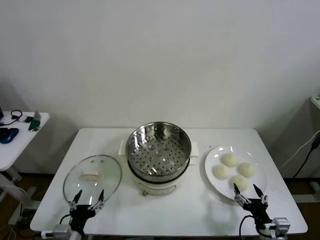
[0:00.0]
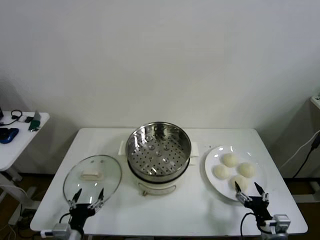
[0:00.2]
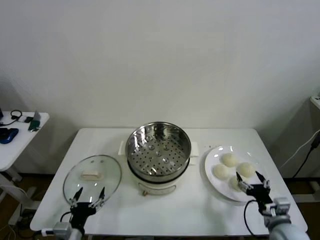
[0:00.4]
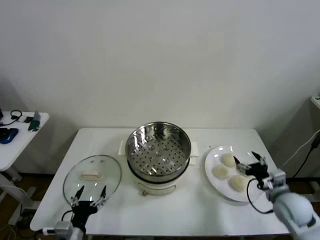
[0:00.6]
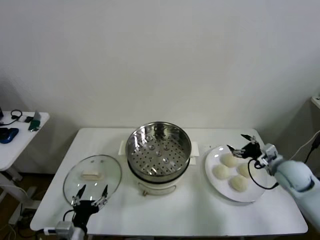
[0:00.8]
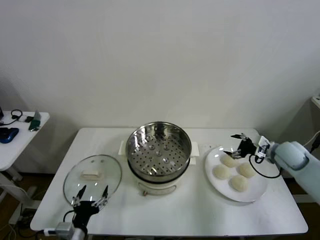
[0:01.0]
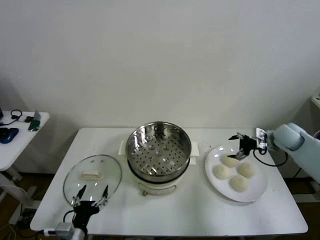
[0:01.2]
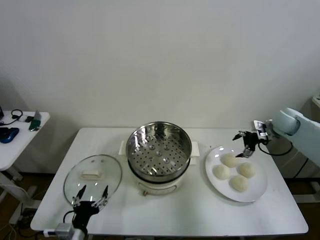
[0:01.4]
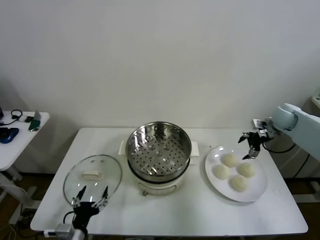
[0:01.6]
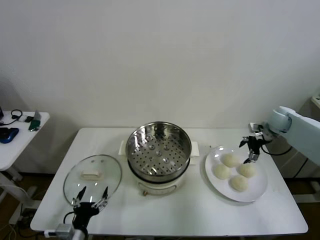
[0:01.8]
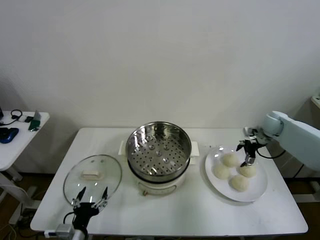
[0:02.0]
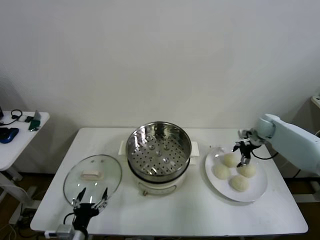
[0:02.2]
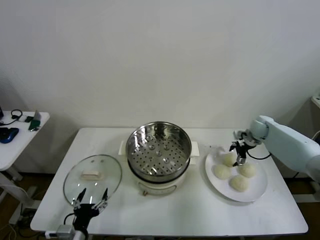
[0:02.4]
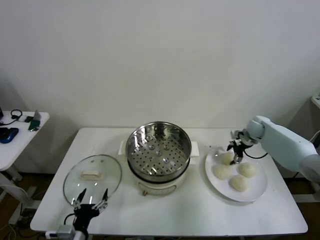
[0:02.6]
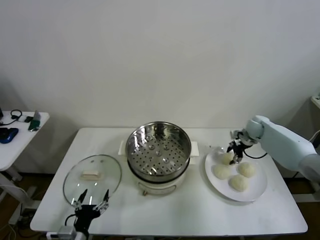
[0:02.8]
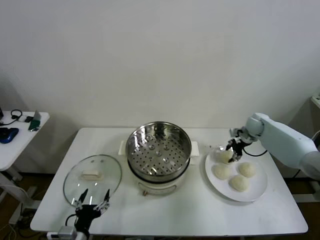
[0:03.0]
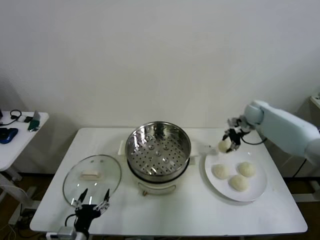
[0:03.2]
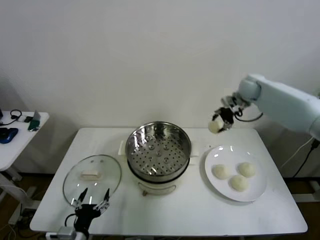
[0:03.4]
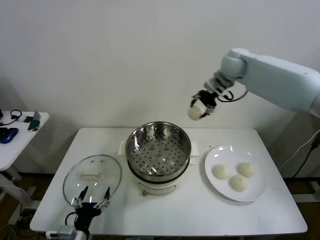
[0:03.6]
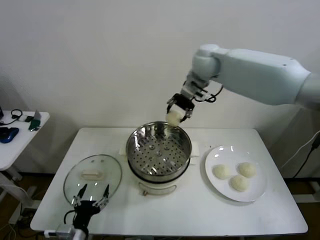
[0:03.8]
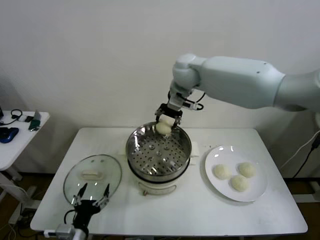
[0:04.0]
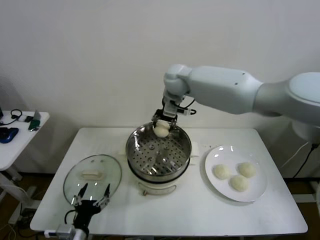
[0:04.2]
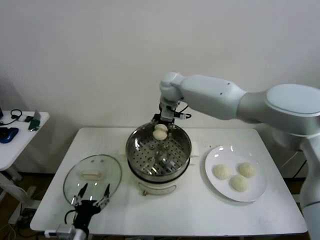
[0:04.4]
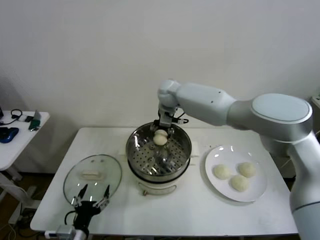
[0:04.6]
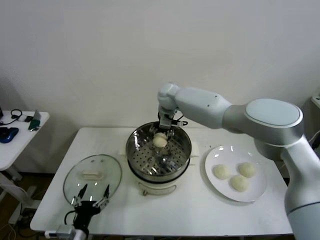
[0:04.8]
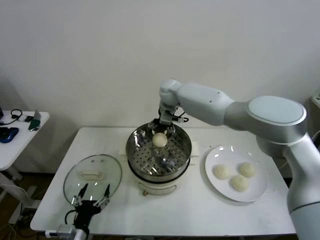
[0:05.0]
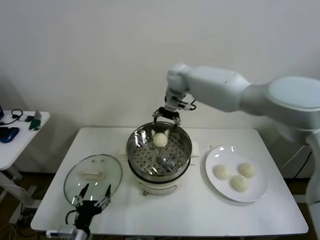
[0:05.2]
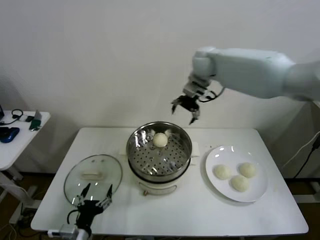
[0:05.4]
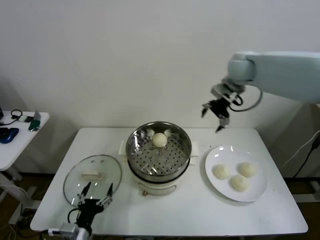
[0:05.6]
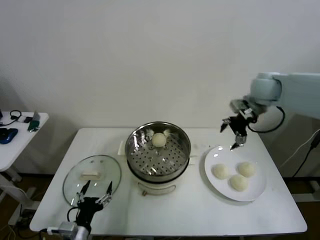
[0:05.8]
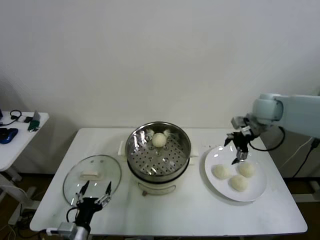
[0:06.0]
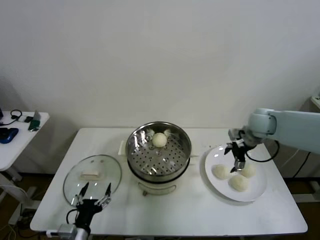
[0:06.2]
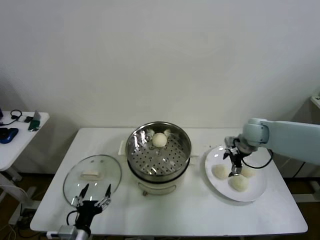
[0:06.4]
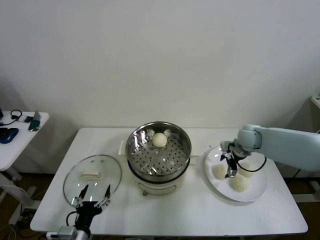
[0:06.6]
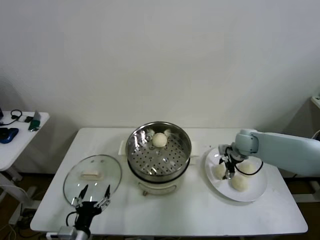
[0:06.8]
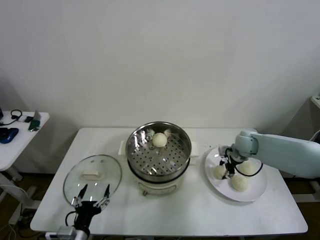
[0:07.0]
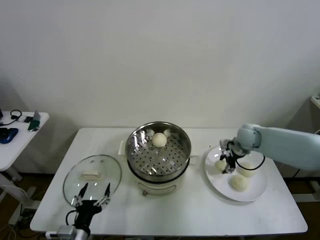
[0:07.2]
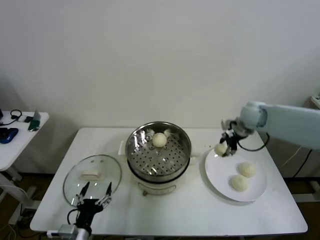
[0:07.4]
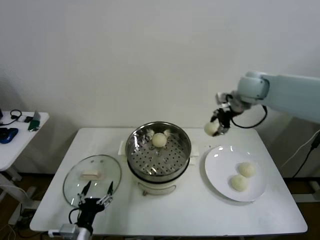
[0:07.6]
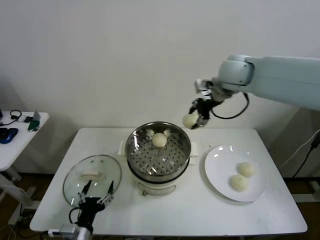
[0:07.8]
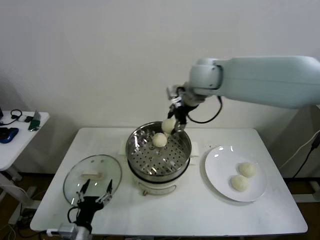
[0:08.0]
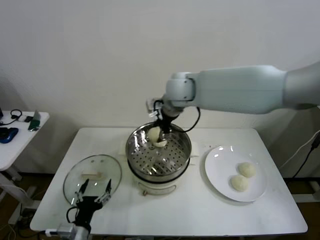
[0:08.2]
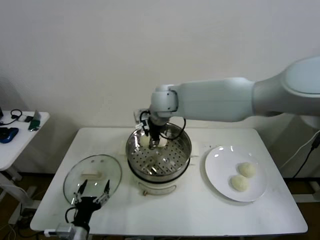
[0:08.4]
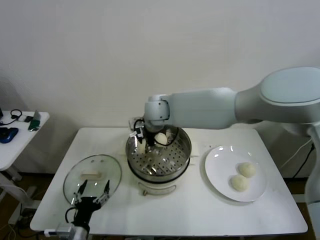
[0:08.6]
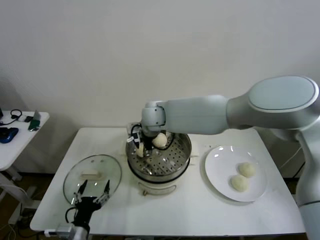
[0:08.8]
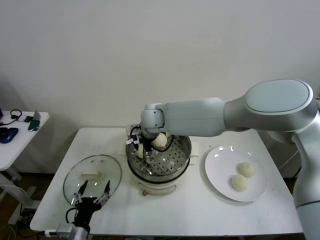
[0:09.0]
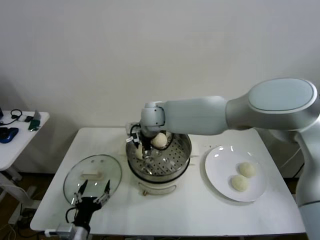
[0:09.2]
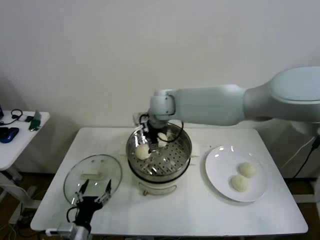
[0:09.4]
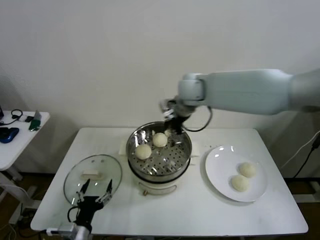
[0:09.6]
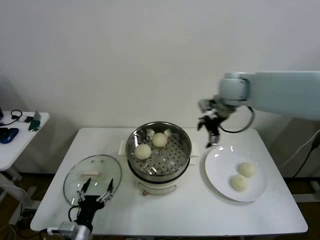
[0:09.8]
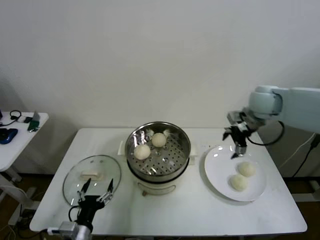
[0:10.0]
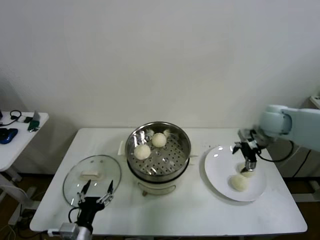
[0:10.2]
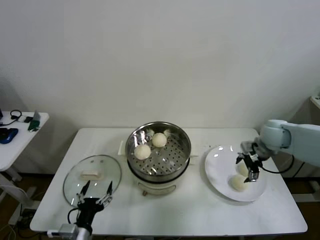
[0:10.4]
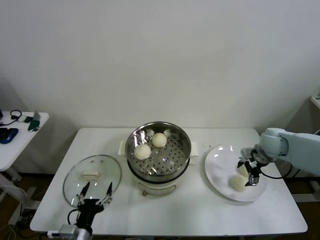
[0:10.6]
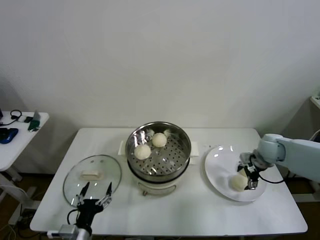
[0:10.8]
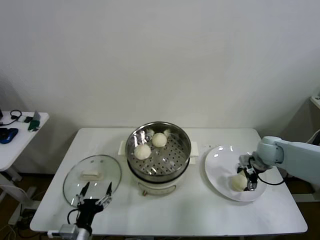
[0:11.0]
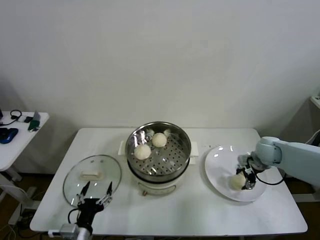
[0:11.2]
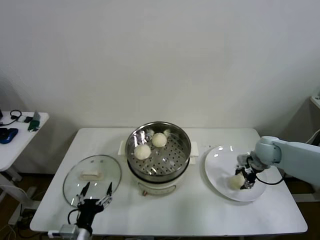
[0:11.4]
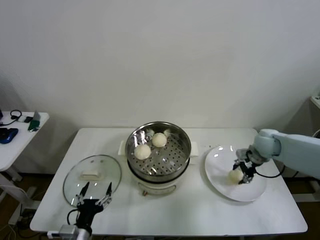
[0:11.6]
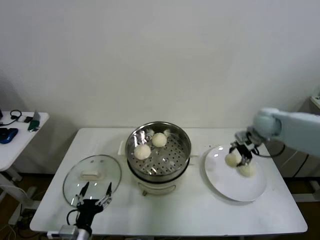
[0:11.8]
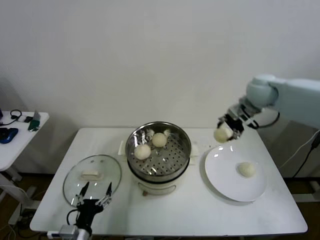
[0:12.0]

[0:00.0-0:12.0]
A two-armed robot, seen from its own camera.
Step, 0:00.0 to 0:02.8: Grasp the baozi in the plate with right gripper.
Step, 0:03.0 to 0:04.8: Place the baozi on the steamer with right gripper.
Step, 0:05.0 to 0:07.0: Grasp the baozi in the plate with right gripper.
Step, 0:07.2 to 0:09.0: Place the baozi on the steamer with right gripper.
Step, 0:09.2 to 0:11.2: Grasp the baozi in the plate with right gripper.
0:01.6 to 0:03.0: The right gripper moves to the left and forward, roughly 10 cm, and closes its fingers.
0:03.0 to 0:04.4: The right gripper goes some 35 cm to the left.
0:04.4 to 0:06.0: The right gripper travels to the right by about 30 cm, and opens up.
0:06.0 to 0:07.6: The right gripper moves upward and to the left, approximately 15 cm, and closes up.
0:07.6 to 0:09.0: The right gripper heads to the left and downward, covering roughly 30 cm, and opens its fingers.
0:09.0 to 0:10.4: The right gripper travels to the right by approximately 40 cm, and opens.
0:10.4 to 0:12.0: The right gripper heads upward and to the left, covering roughly 20 cm, and closes up.

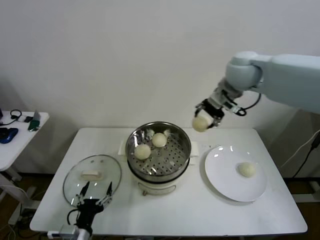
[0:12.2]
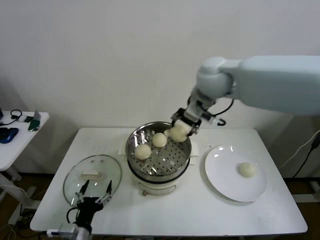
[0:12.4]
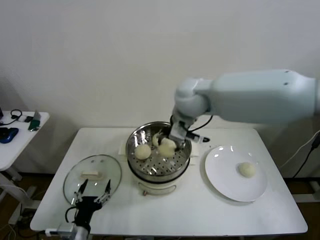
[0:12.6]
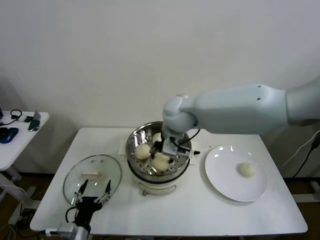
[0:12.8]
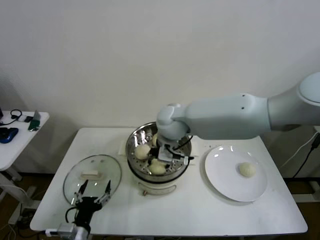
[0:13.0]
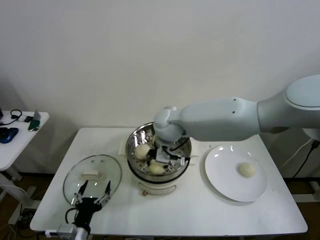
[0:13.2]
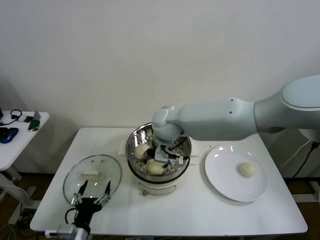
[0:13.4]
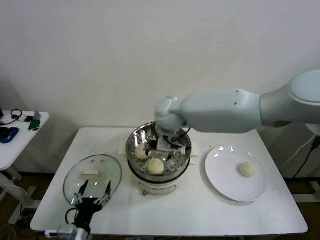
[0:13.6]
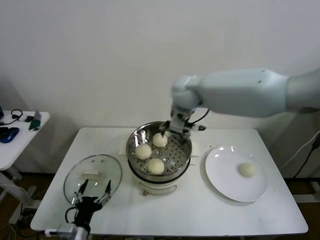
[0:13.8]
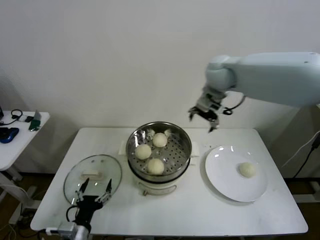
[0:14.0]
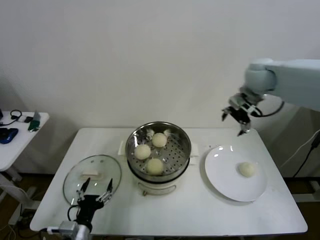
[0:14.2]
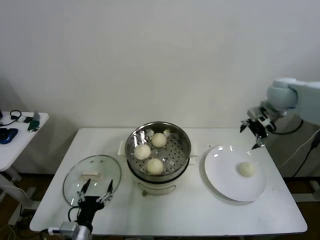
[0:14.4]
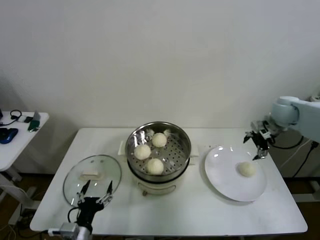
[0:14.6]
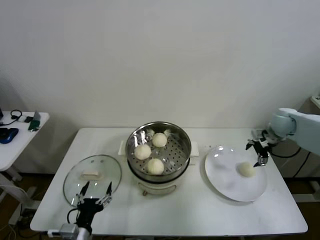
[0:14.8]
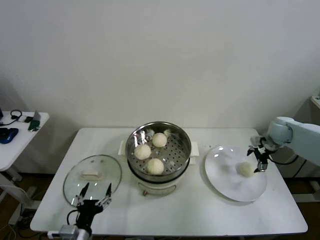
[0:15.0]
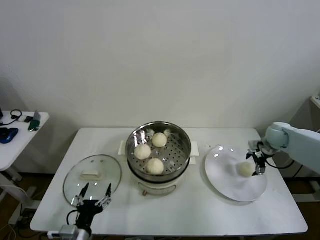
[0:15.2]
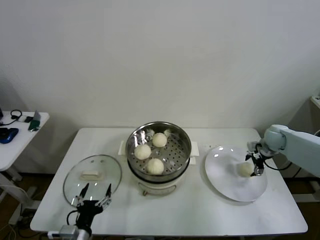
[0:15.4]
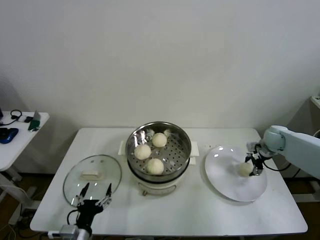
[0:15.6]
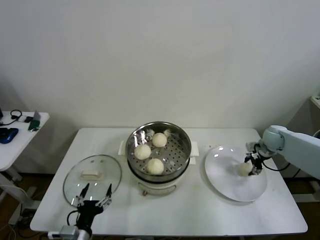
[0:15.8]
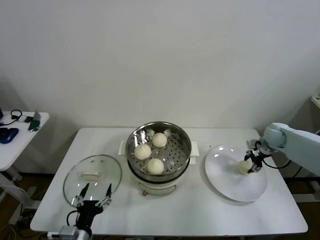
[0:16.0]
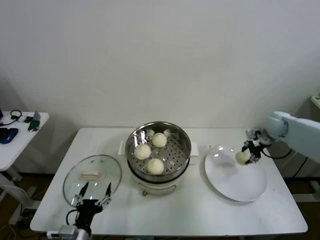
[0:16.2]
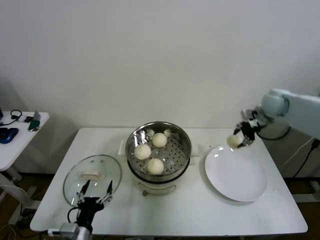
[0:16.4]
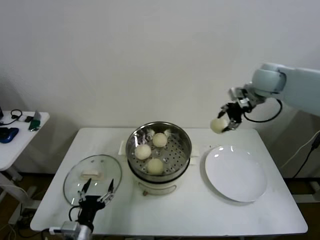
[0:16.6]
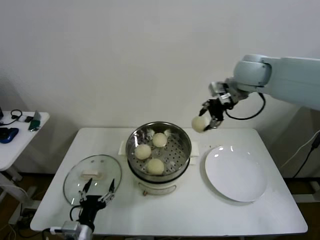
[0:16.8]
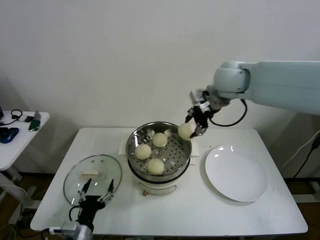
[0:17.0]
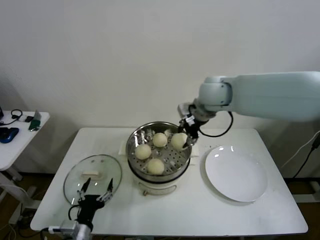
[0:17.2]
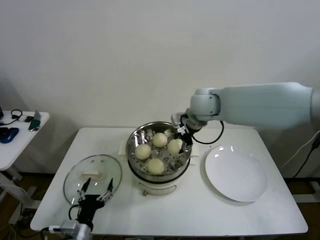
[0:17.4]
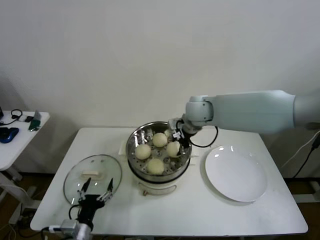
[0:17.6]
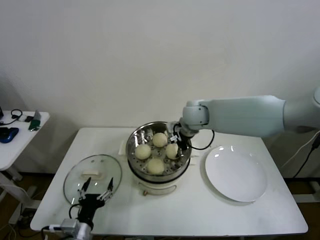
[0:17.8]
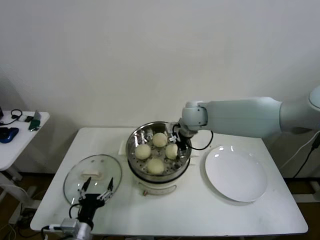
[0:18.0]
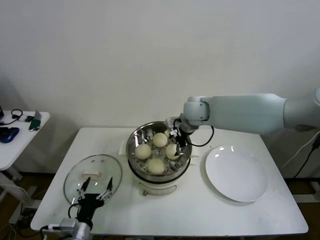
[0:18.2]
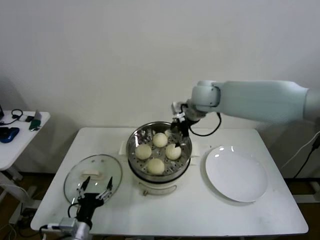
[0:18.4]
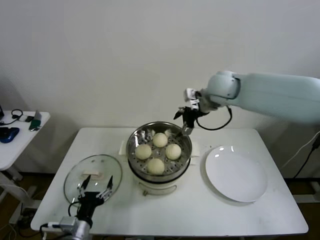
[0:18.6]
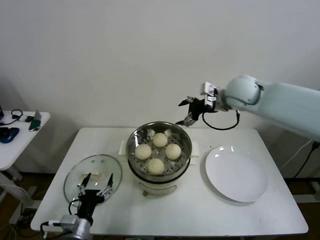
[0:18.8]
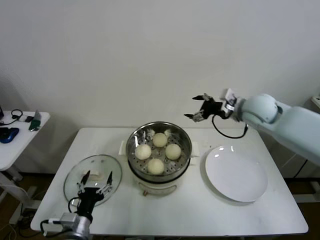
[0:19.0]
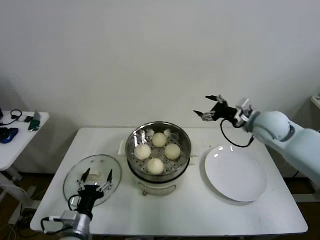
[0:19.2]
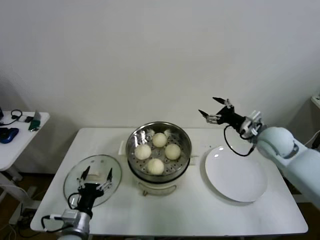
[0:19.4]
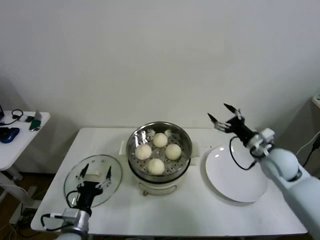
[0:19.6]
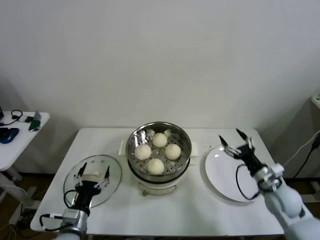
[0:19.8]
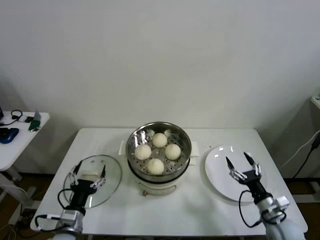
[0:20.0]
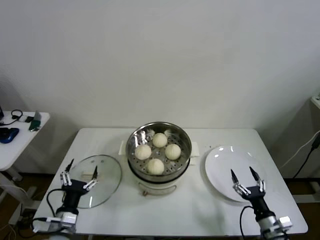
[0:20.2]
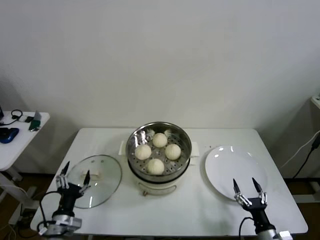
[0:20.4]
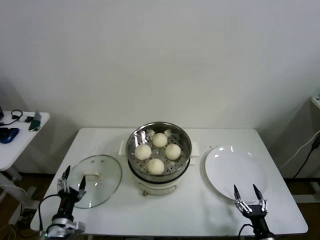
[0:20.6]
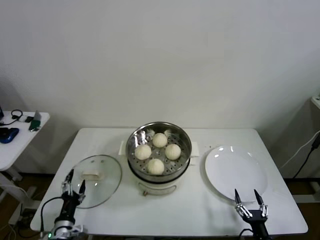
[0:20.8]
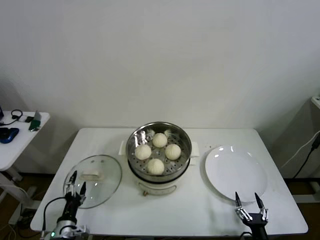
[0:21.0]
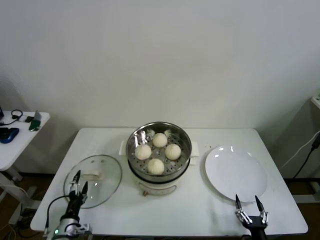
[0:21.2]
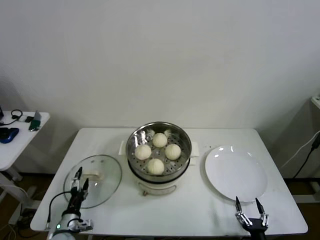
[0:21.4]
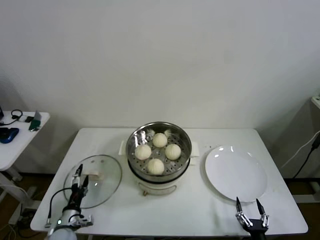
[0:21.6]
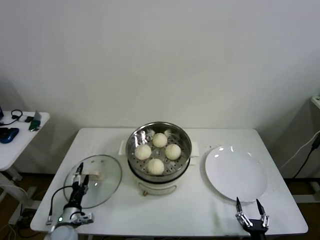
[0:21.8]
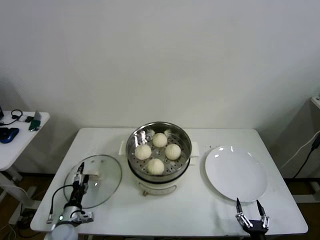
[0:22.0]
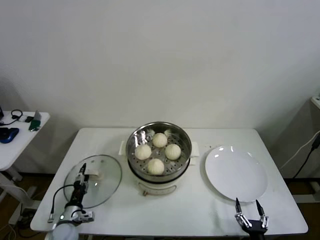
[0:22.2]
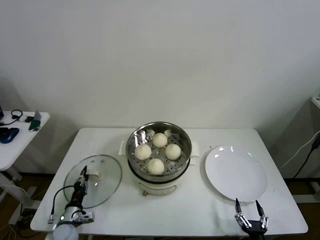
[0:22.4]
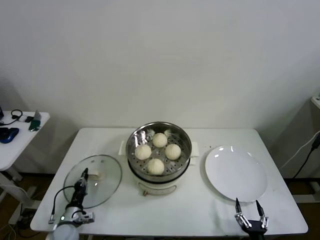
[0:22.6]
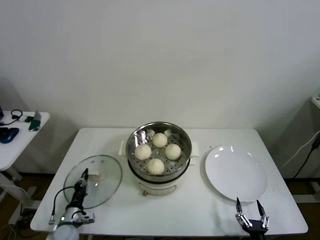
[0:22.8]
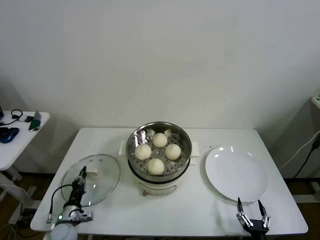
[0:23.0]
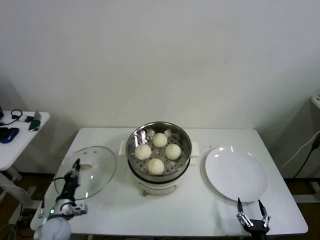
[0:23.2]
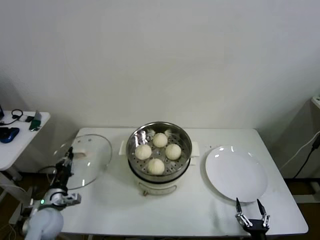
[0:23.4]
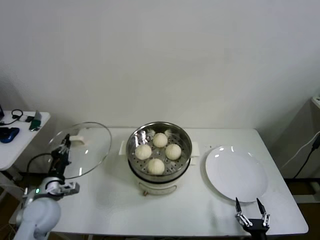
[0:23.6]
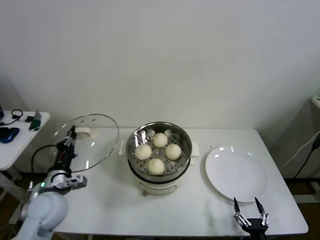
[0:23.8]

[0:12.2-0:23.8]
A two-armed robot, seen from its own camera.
Step, 0:12.2 to 0:13.4: Place the baozi on the steamer with right gripper.
Step, 0:13.6 to 0:15.6: Grasp the baozi in the plate with right gripper.
Step, 0:15.8 to 0:18.0: Place the baozi on the steamer with right gripper.
Step, 0:18.2 to 0:22.6: Grasp the pot lid with left gripper.
0:12.2 to 0:13.6: The right gripper travels to the left and downward by some 20 cm, and opens up.
0:13.6 to 0:15.0: The right gripper shifts some 40 cm to the right.
0:15.0 to 0:16.6: The right gripper shifts approximately 25 cm upward and to the left, and closes its fingers.
0:16.6 to 0:18.0: The right gripper moves to the left and downward, about 25 cm, and opens up.
0:18.0 to 0:19.4: The right gripper moves to the right and backward, some 25 cm.
0:19.4 to 0:21.0: The left gripper moves downward and to the left, some 15 cm, while the right gripper shifts approximately 40 cm backward and downward.
0:21.0 to 0:22.4: The left gripper is displaced forward by approximately 5 cm, and closes.
0:22.4 to 0:23.8: The left gripper heads upward, covering about 20 cm, and closes its fingers.
